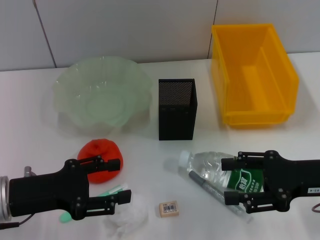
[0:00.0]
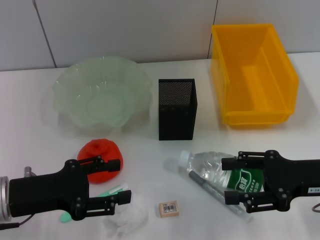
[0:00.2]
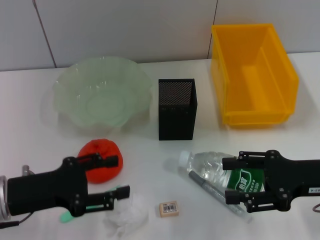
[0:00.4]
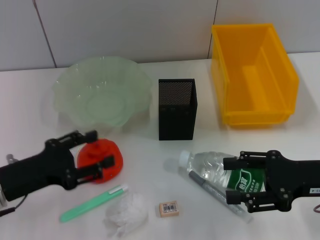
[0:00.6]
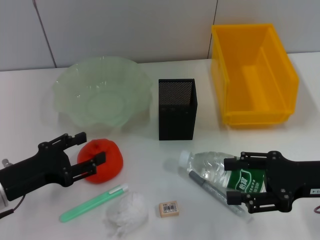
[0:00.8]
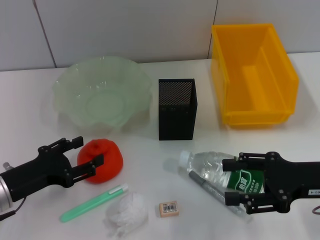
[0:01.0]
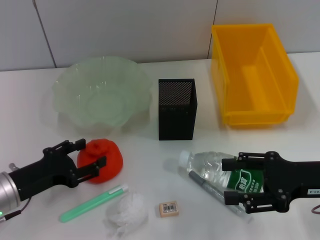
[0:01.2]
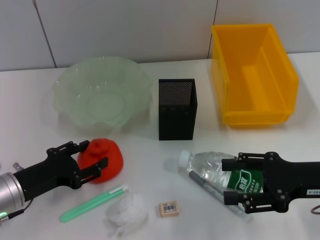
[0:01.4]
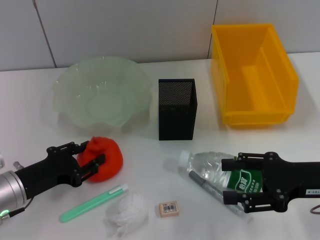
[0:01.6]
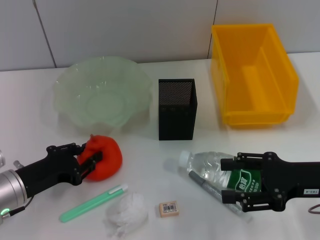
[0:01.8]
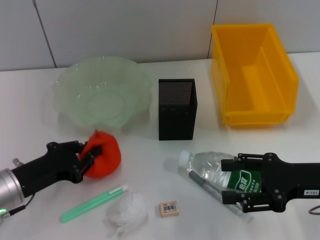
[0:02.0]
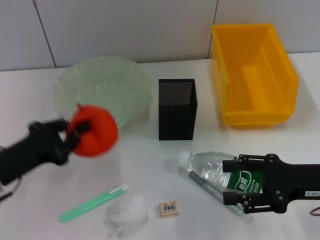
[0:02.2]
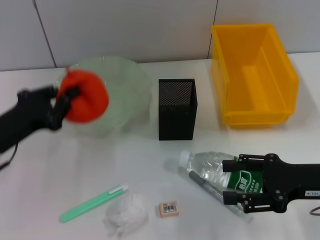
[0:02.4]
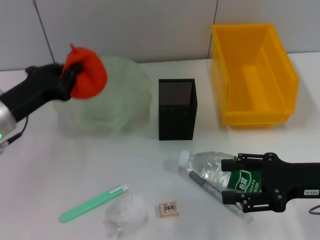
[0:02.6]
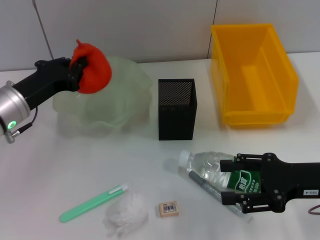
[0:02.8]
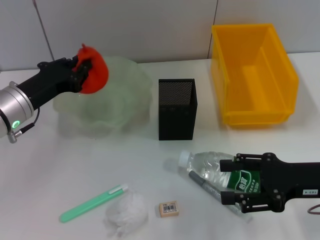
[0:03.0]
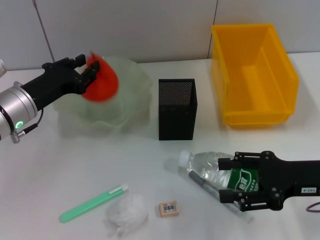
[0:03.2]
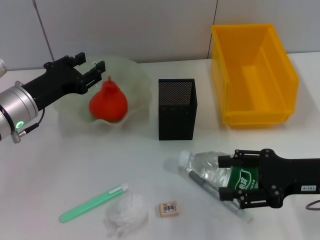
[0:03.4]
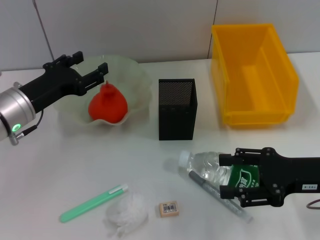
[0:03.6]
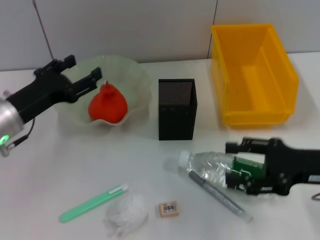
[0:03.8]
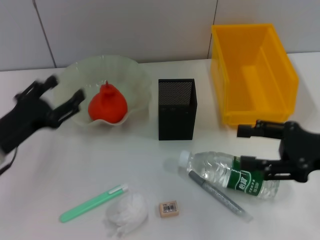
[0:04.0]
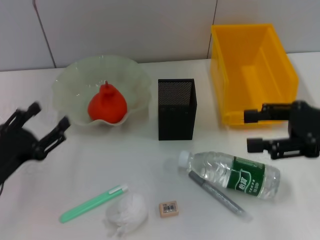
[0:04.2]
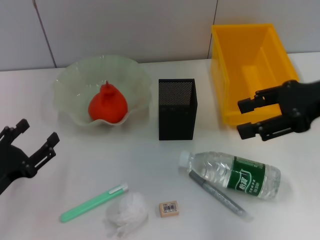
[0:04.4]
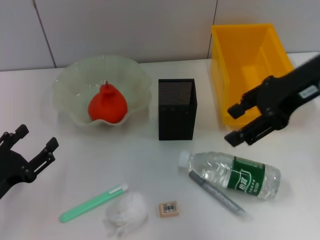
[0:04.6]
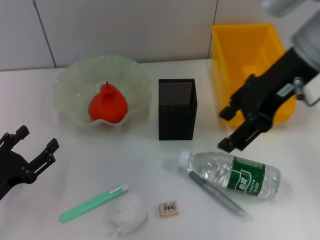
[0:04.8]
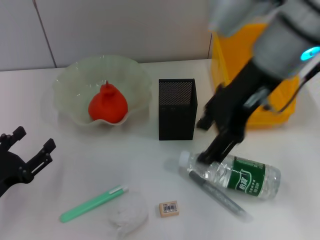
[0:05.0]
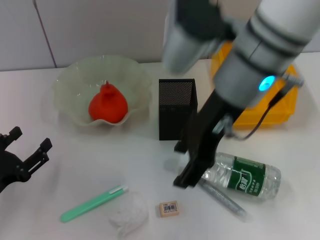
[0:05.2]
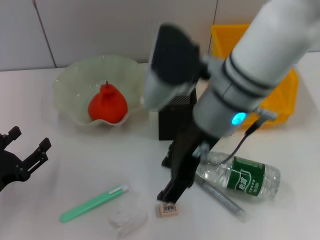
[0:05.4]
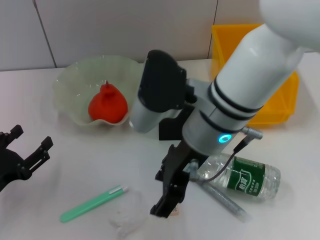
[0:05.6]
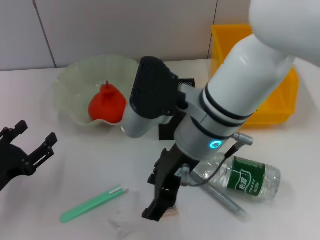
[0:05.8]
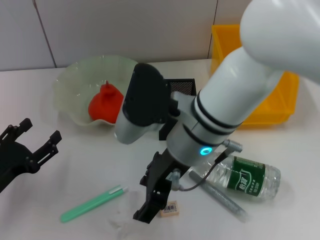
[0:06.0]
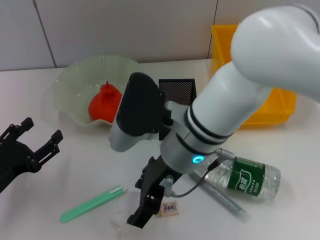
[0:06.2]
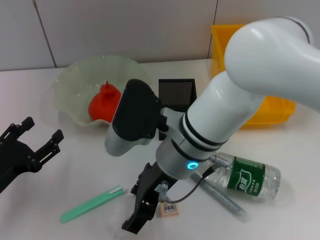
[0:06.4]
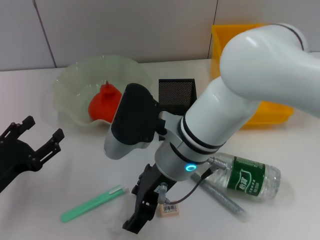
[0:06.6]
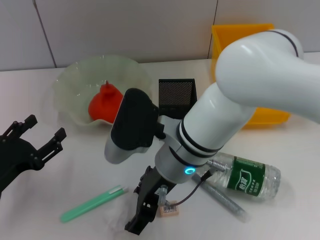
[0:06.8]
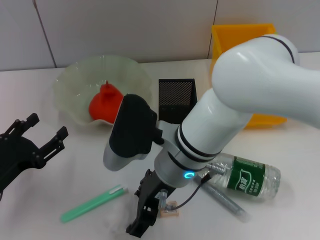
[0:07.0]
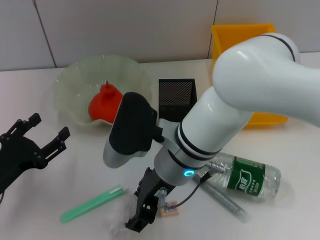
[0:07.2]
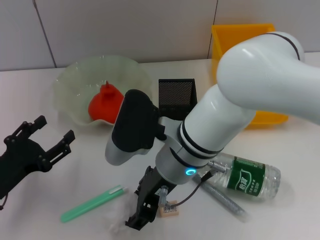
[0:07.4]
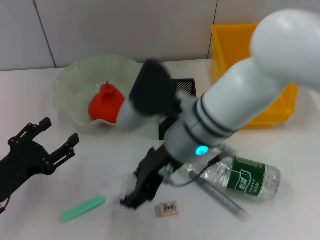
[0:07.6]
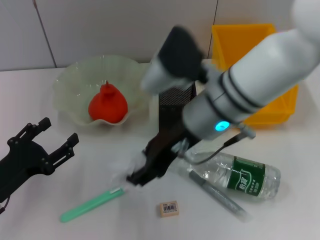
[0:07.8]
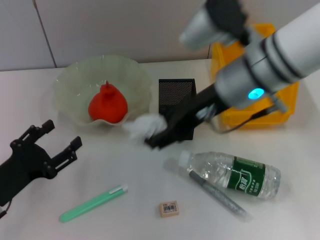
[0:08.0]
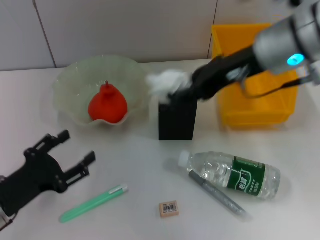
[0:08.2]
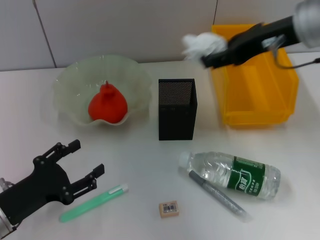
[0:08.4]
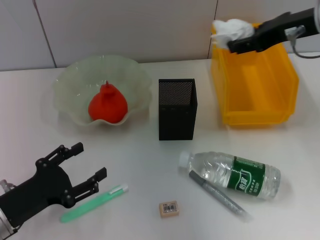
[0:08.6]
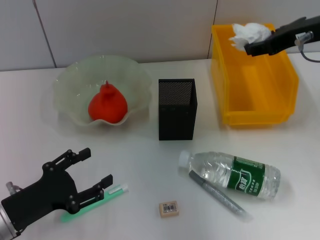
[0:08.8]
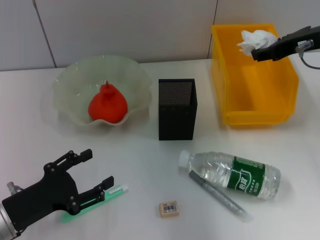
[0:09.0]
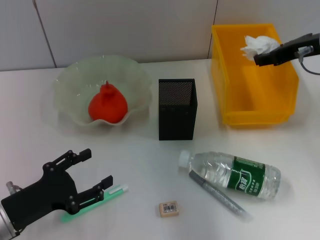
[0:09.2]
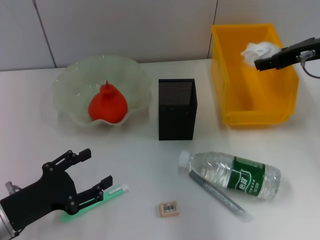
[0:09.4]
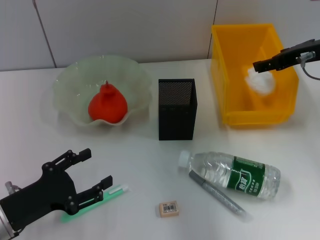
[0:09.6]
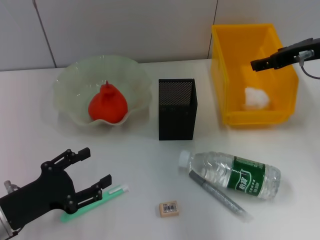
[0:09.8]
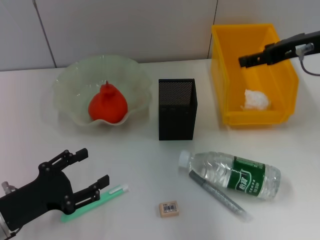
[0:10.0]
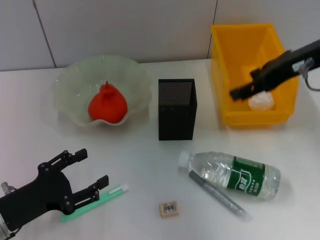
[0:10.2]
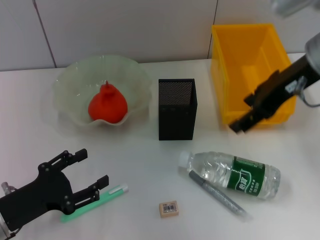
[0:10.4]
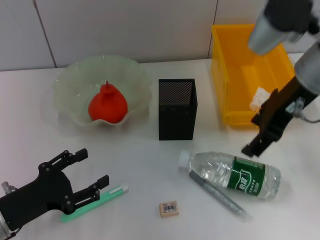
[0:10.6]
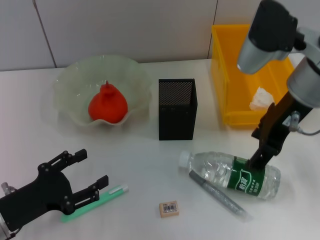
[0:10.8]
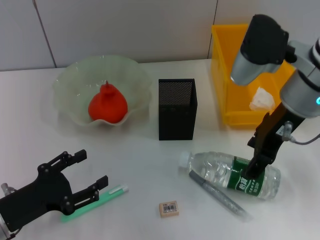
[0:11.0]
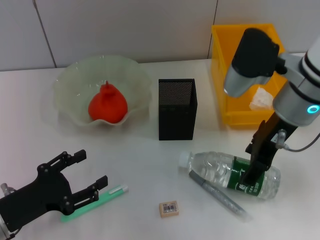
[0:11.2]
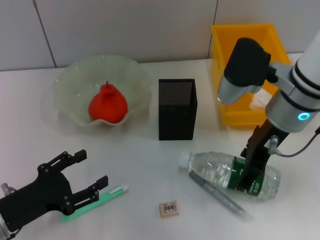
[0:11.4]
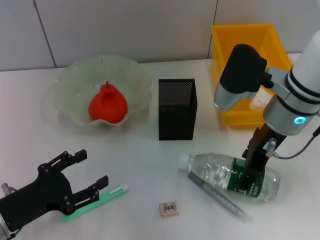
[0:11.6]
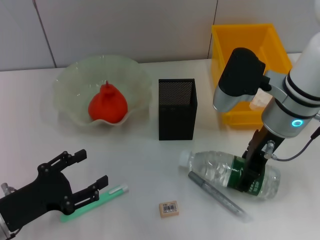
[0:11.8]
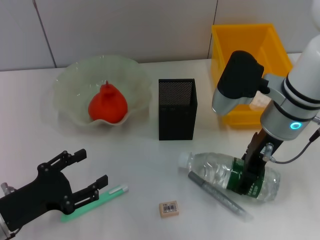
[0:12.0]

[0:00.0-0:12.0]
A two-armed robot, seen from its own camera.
Step, 0.0 to 1.8 s: Grab the orange with the left hand.
Step, 2.0 to 3.6 s: Place the orange into the fruit bowl with the left hand.
Step, 3.8 to 7.2 s: Grab the paper ball with the right hand.
Step, 7.4 to 10.2 s: Place the paper ball into the trash can with the right hand.
0.0 to 1.6 s: The left gripper travels downward by roughly 5 cm.
1.6 to 3.0 s: The left gripper travels forward and upward by approximately 10 cm, and closes.
3.0 to 4.4 s: The left gripper shifts roughly 15 cm backward, downward and to the left, and opens up; the right gripper travels upward and forward by approximately 15 cm.
4.4 to 6.0 s: The right gripper heads to the left, covering approximately 25 cm.
6.0 to 7.6 s: The grippers move only a little.
7.6 to 9.0 s: The right gripper moves to the right, about 20 cm.
9.0 to 10.4 s: The right gripper is displaced to the left by about 5 cm, and opens.
10.4 to 12.0 s: The right gripper heads downward, covering about 10 cm.

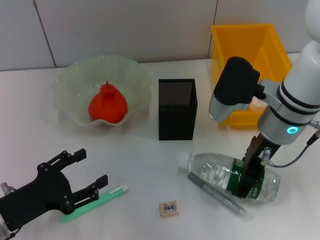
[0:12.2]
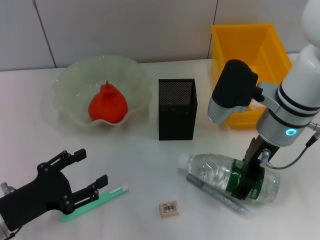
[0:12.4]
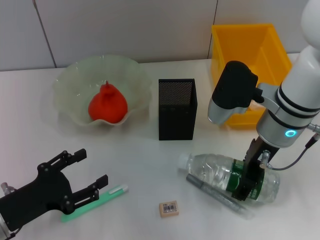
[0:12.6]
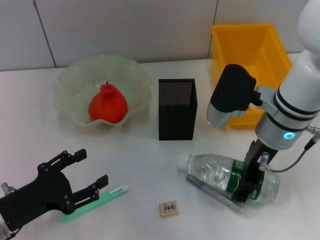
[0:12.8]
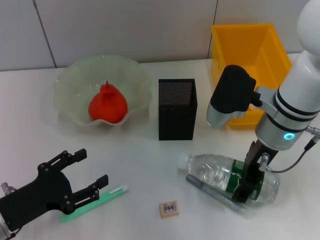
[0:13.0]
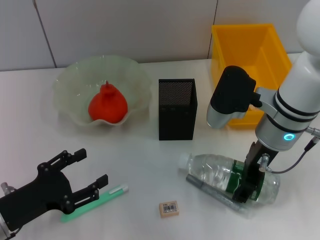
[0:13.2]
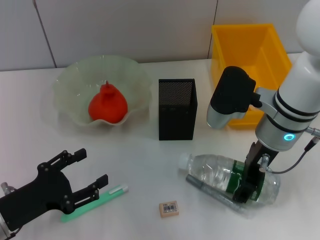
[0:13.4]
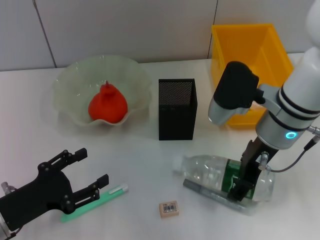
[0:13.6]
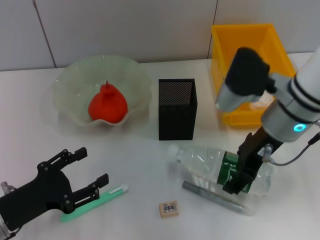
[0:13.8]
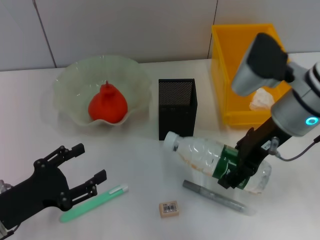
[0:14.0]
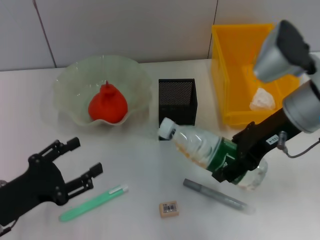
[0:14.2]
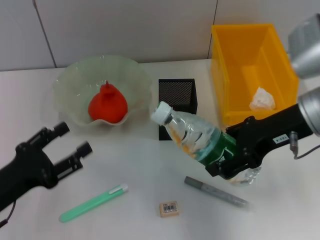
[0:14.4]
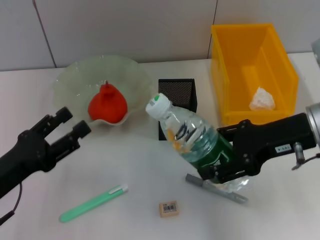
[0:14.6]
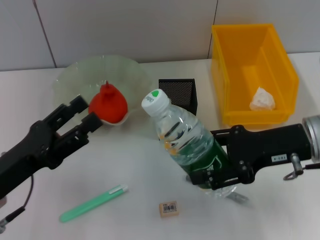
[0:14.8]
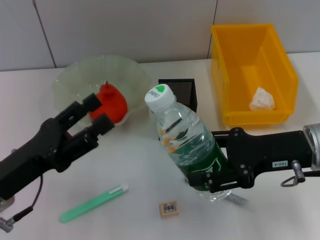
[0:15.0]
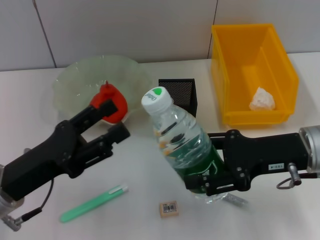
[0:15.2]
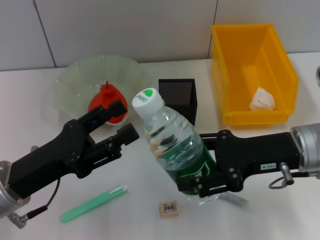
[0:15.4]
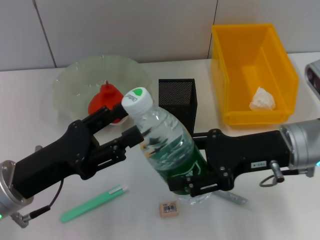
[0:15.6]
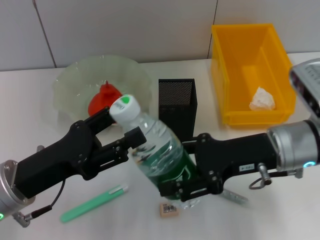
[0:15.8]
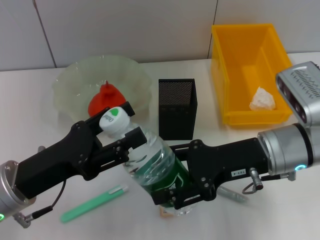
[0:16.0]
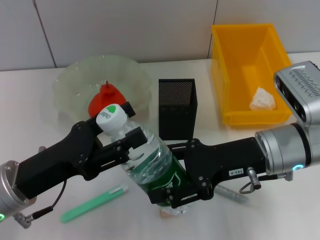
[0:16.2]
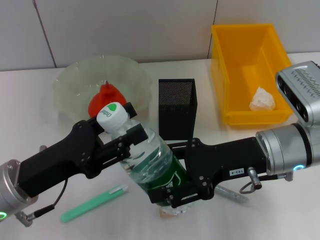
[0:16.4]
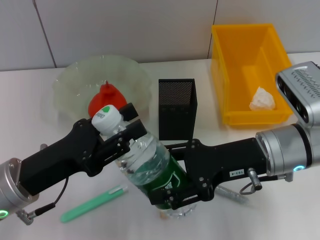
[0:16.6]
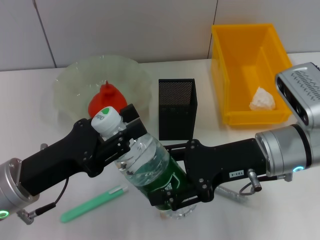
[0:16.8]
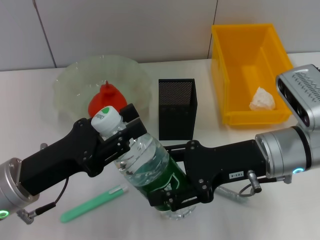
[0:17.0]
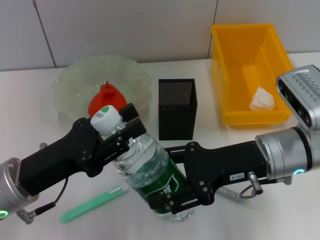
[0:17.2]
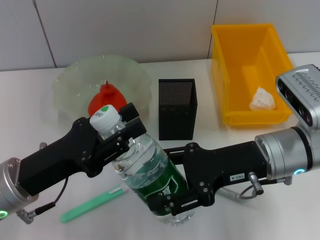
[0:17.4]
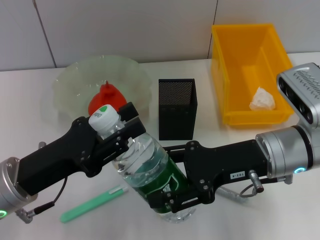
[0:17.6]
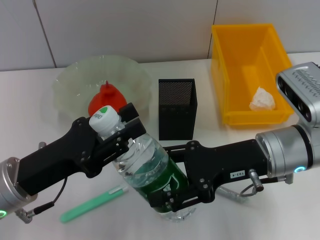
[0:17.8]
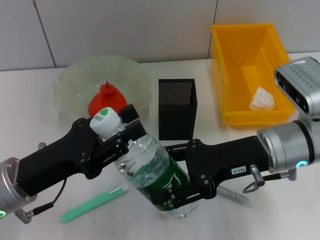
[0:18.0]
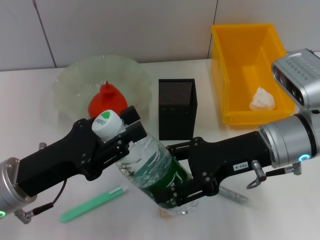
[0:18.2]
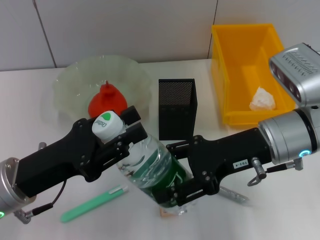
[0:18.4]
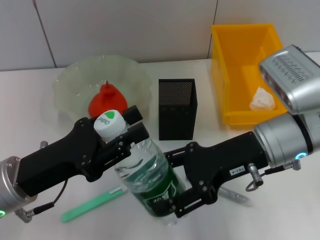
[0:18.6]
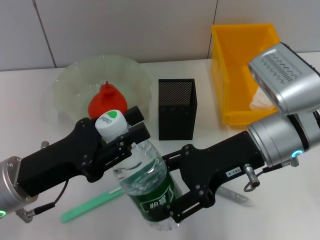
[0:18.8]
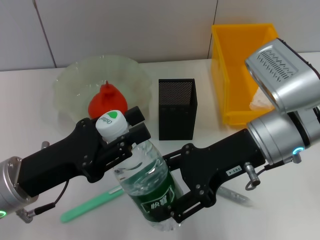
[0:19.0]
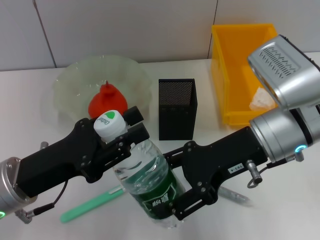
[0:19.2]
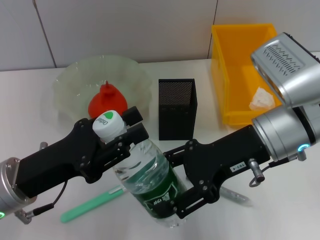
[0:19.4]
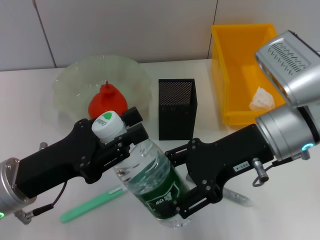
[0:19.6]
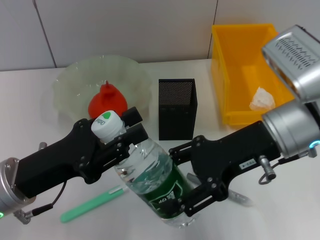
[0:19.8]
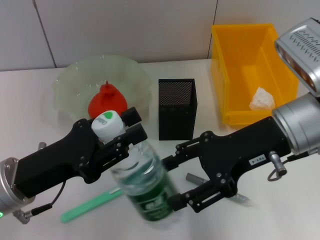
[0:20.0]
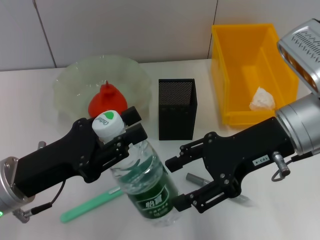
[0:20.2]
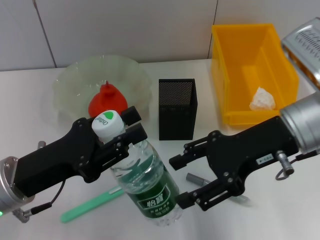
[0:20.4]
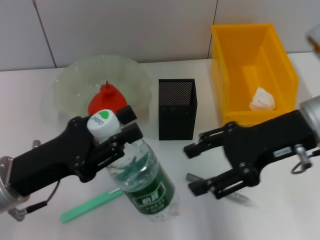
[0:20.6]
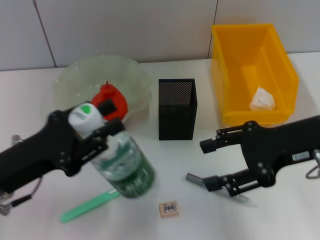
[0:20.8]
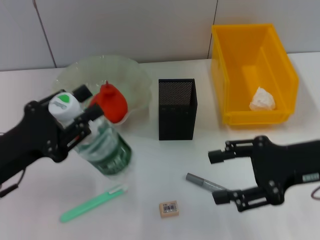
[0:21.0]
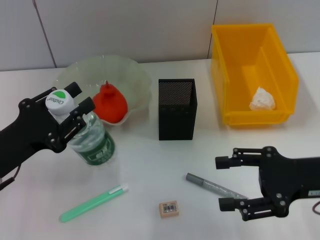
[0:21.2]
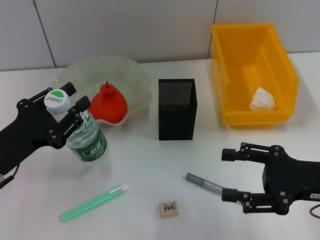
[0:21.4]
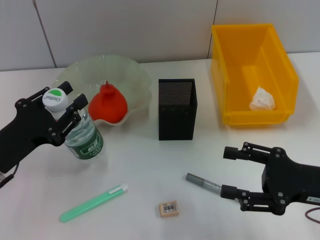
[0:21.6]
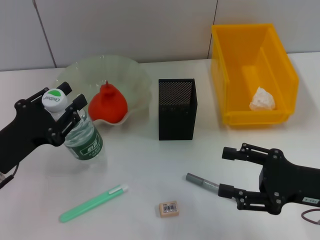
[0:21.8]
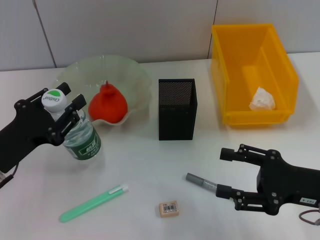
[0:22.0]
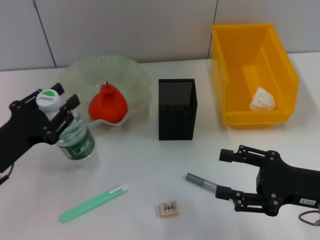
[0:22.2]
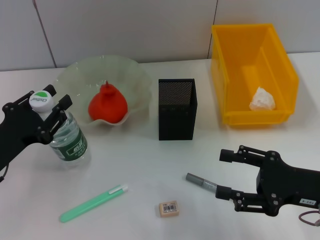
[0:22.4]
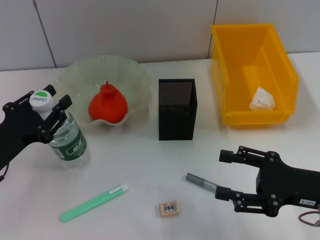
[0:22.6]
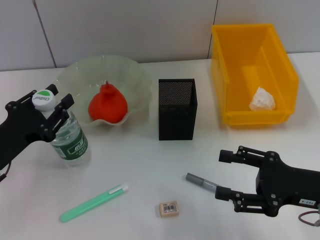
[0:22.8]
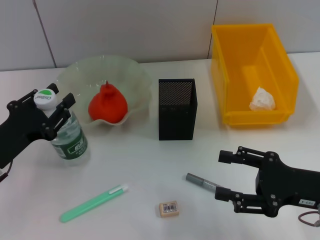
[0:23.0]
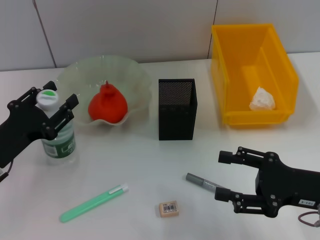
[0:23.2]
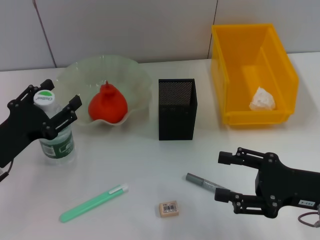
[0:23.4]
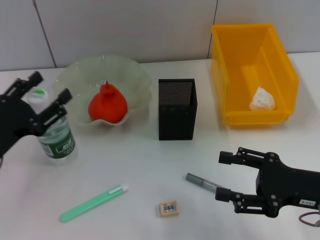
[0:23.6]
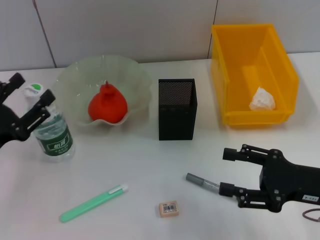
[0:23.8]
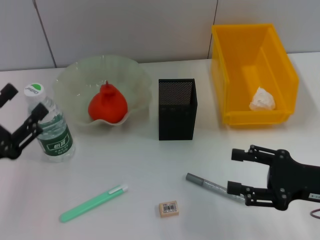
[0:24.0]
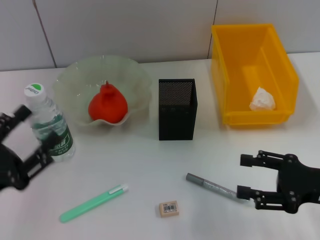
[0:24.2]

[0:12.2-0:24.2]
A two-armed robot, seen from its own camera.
Step, 13.6 to 17.8 s: Pass the water bottle from the right hand to the left hand.
Step, 18.0 to 23.6 s: Place the water bottle on the table with the left hand.
12.2 to 13.8 s: The grippers move only a little.
13.8 to 15.2 s: The left gripper heads upward, covering approximately 5 cm. Meanwhile the right gripper goes approximately 10 cm to the right and backward.
15.2 to 16.6 s: The right gripper shifts by roughly 5 cm.
16.6 to 18.2 s: The grippers move only a little.
18.2 to 19.8 s: The grippers stay close to where they were, moving slightly.
19.8 to 21.2 s: The right gripper moves to the right, backward and downward, roughly 10 cm.
21.2 to 22.6 s: The right gripper goes some 5 cm downward.
22.6 to 24.2 s: The left gripper travels backward by about 5 cm, and opens.
